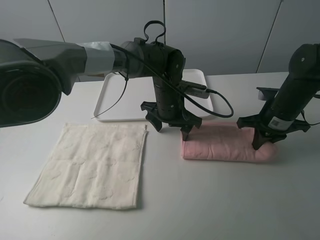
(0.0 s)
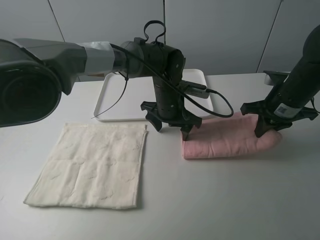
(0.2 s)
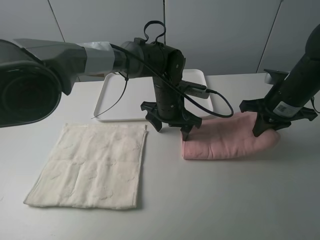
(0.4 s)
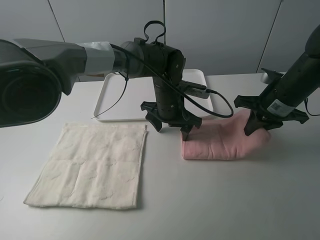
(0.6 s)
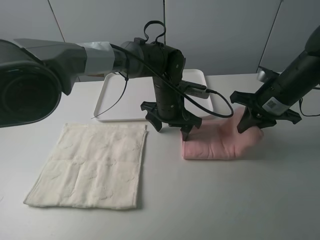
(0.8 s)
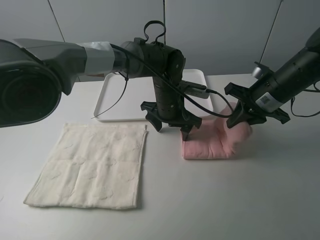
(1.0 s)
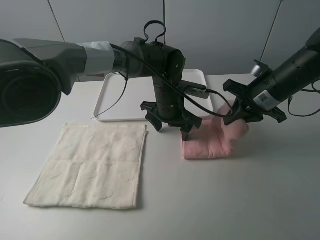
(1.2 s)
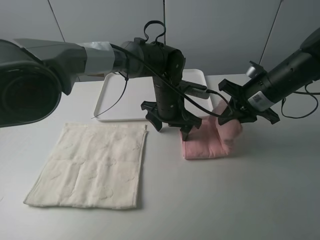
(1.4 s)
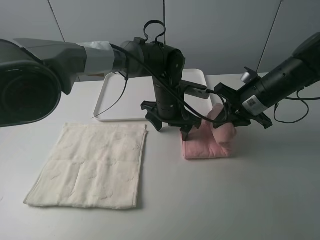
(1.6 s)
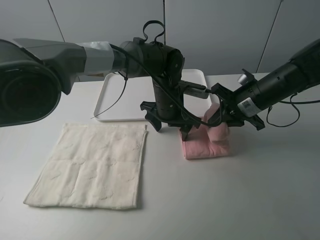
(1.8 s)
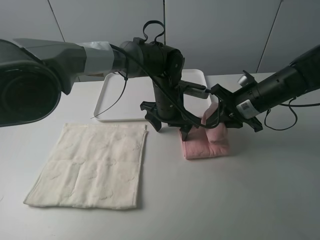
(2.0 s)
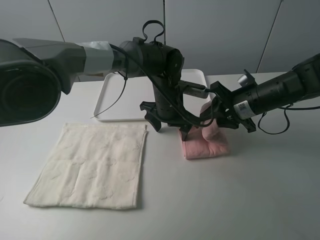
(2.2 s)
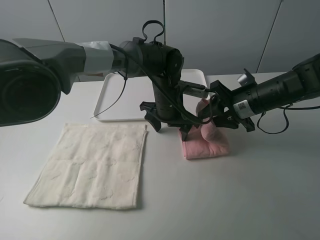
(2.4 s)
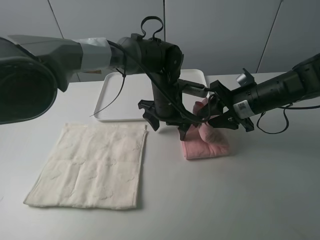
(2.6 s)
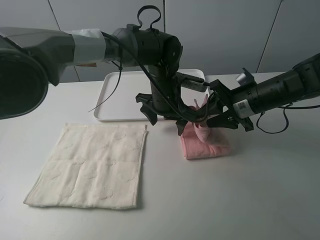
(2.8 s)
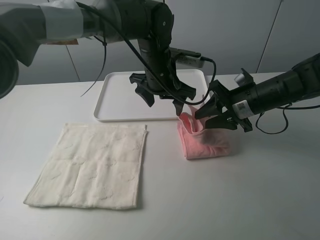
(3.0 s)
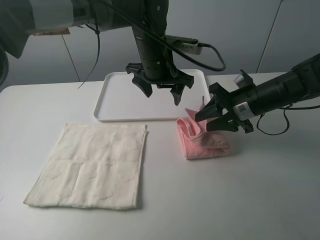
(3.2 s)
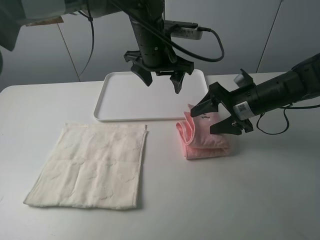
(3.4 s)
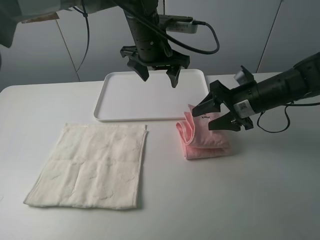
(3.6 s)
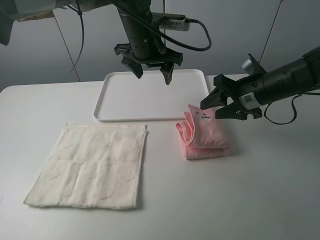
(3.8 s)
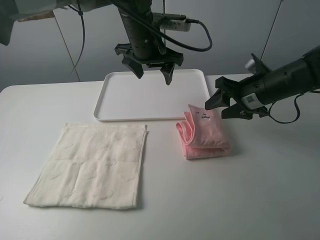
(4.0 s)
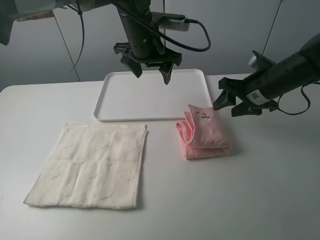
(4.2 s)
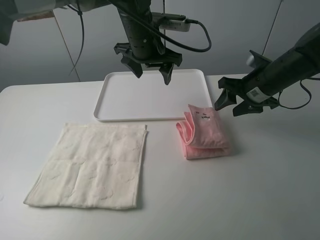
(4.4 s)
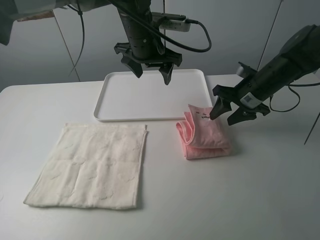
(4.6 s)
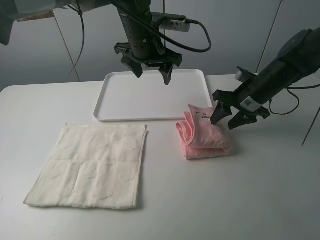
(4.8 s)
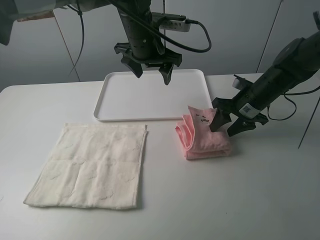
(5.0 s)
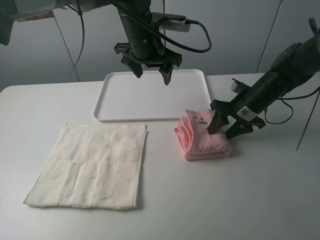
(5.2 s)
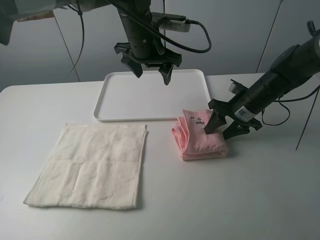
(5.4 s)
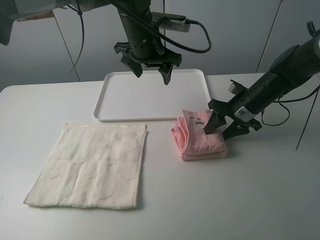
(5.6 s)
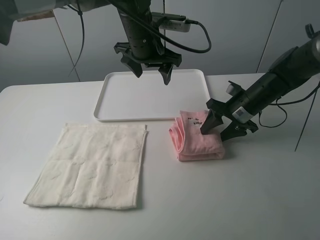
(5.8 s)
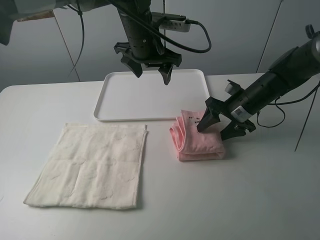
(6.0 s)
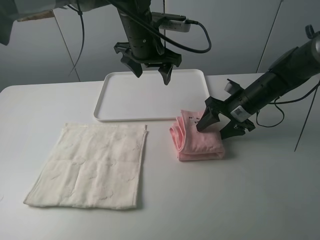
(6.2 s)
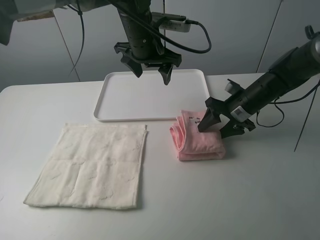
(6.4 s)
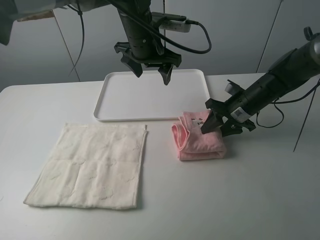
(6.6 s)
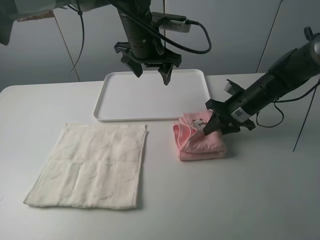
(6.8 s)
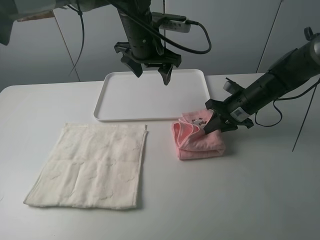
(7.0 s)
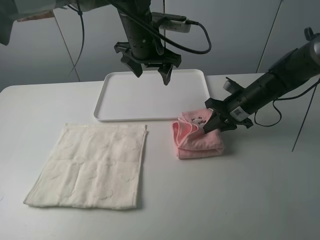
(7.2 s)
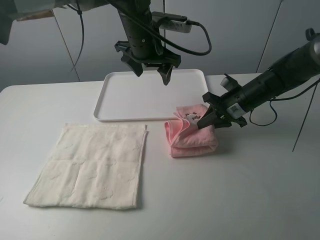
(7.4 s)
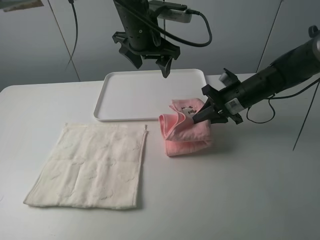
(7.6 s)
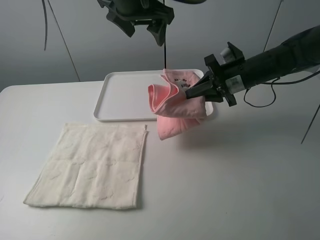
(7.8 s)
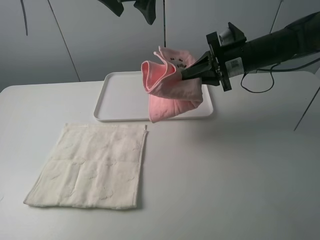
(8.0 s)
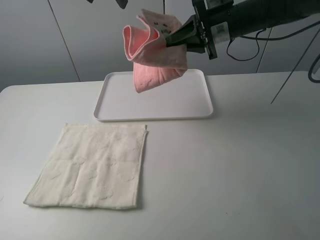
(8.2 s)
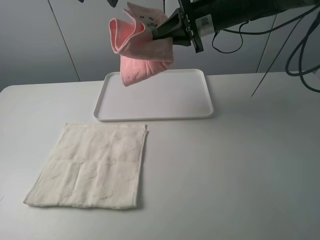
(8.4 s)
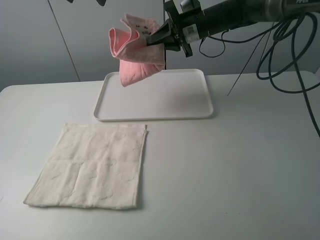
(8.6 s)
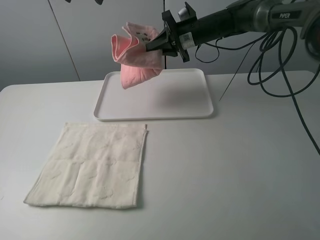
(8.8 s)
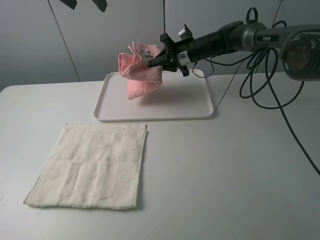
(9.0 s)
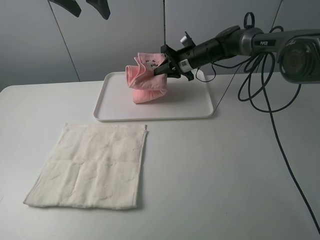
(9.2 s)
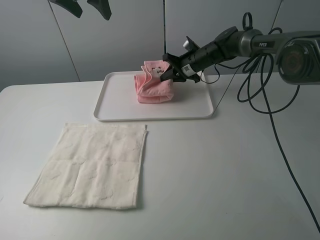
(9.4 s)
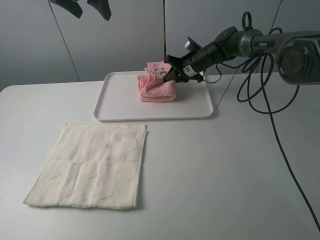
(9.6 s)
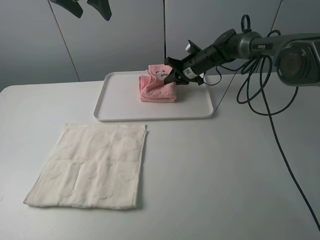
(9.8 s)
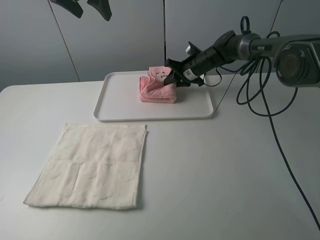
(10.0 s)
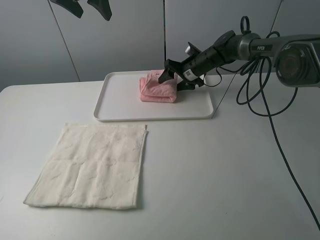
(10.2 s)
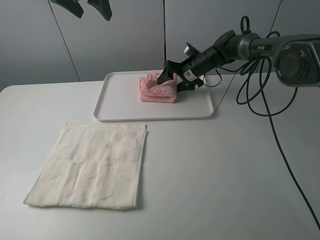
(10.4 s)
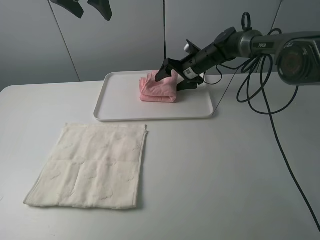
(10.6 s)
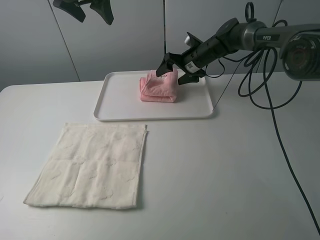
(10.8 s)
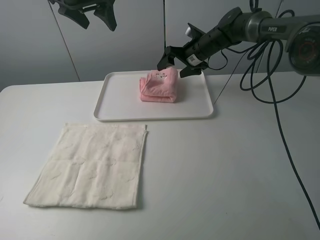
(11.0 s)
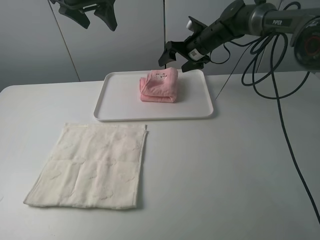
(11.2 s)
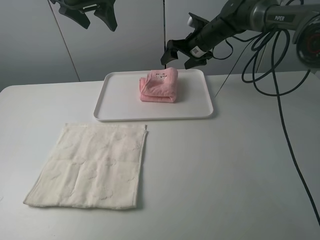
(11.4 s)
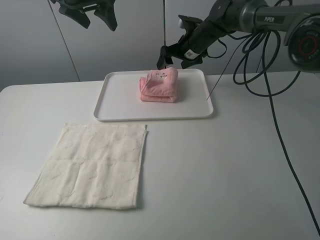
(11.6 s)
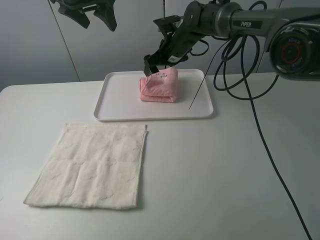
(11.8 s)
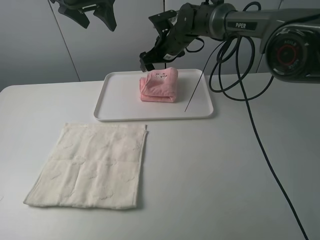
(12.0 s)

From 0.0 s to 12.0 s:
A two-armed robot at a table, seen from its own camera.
Task of the whole recording: fold one of the towels by two grippers and place it on the tray,then fold another towel by two grippers and place it on the folded towel.
Step, from 0.0 s to 4.2 s: Fold the pink towel from right to left with right gripper.
Step, from 4.4 s to 6.8 s: Grasp the pink towel with the right gripper.
Step, from 7.0 s to 10.6 s: Move the pink towel to the plate with the right gripper.
From 0.0 s to 1.6 s: The right gripper changes place by about 5 cm.
From 1.6 s to 3.0 s: The left gripper is displaced upward by about 10 cm. Meanwhile the right gripper opens its fingers.
From 3.0 s to 4.4 s: The left gripper shifts roughly 5 cm upward.
From 4.4 s to 6.0 s: The right gripper is displaced downward by roughly 5 cm.
From 6.0 s to 7.6 s: The right gripper closes its fingers.
From 7.6 s to 9.0 s: The right gripper is displaced forward and to the left by approximately 20 cm. Meanwhile the left gripper is displaced to the left and upward by some 15 cm.
From 9.0 s to 10.4 s: The right gripper opens its fingers.
From 10.4 s to 12.0 s: The right gripper heads upward and to the left, covering about 10 cm.

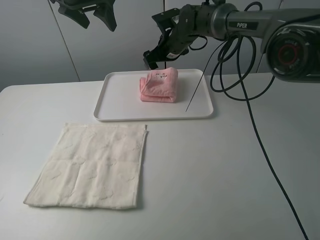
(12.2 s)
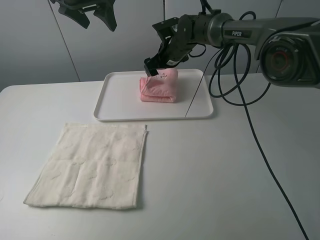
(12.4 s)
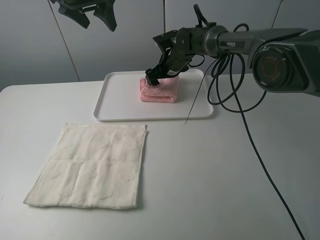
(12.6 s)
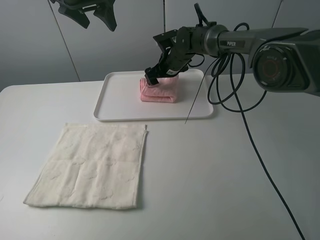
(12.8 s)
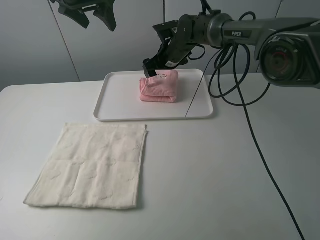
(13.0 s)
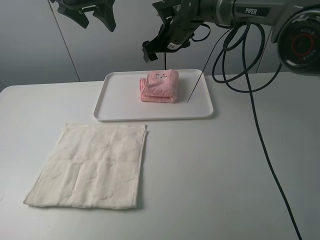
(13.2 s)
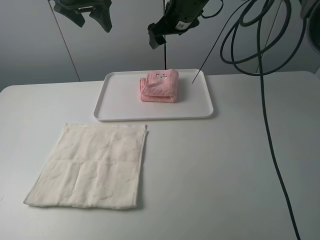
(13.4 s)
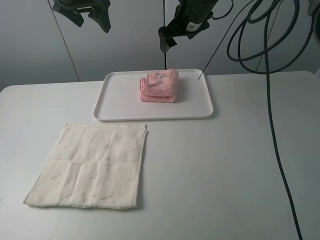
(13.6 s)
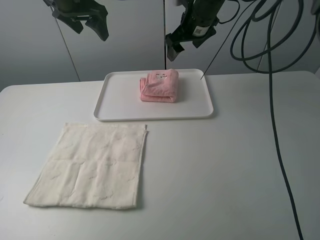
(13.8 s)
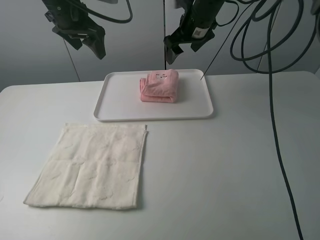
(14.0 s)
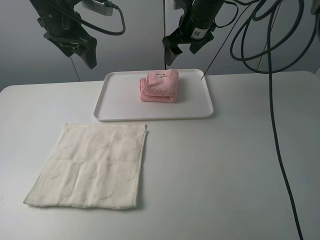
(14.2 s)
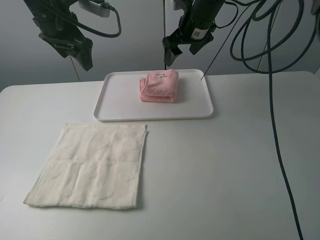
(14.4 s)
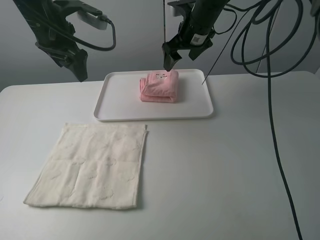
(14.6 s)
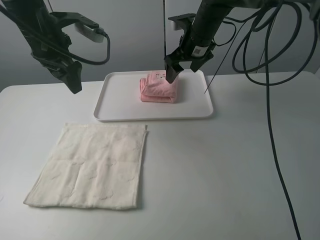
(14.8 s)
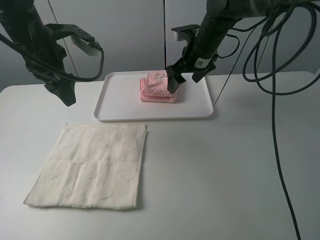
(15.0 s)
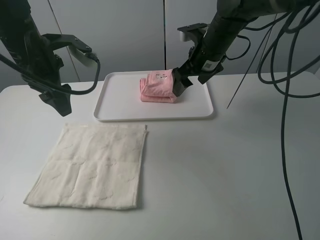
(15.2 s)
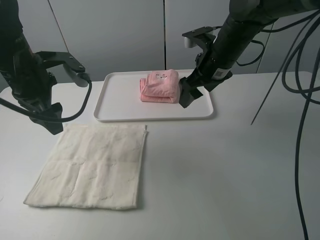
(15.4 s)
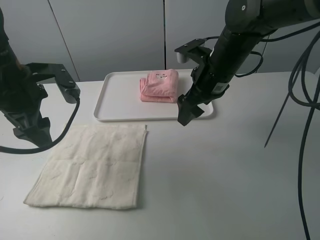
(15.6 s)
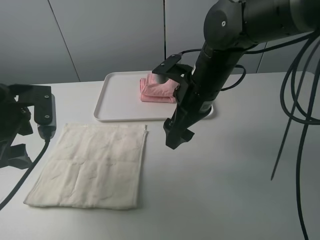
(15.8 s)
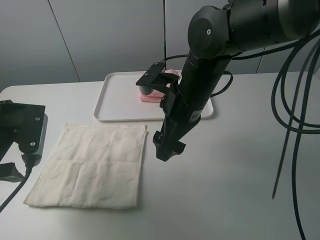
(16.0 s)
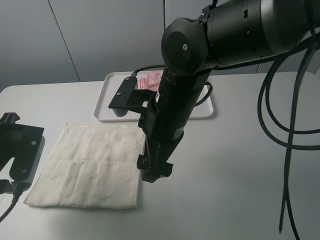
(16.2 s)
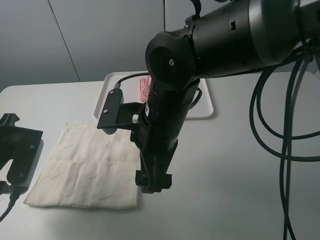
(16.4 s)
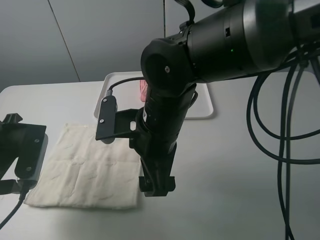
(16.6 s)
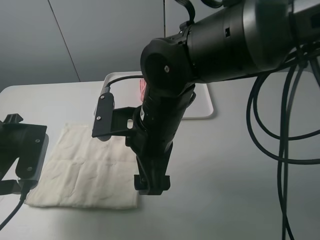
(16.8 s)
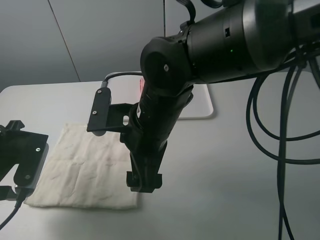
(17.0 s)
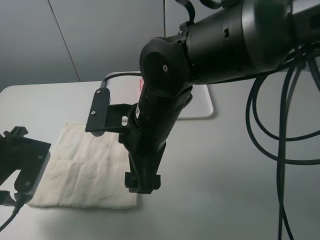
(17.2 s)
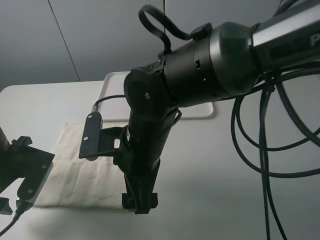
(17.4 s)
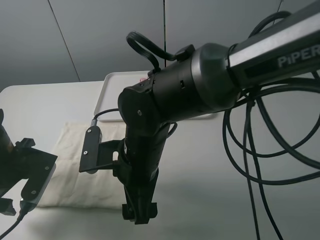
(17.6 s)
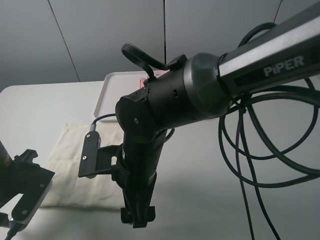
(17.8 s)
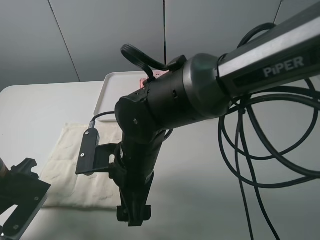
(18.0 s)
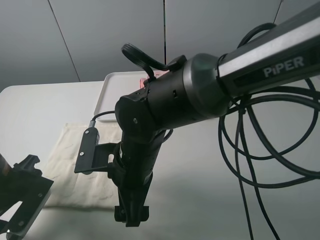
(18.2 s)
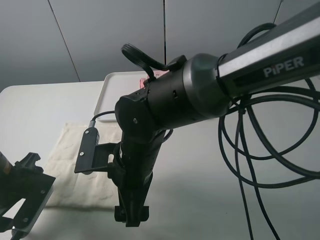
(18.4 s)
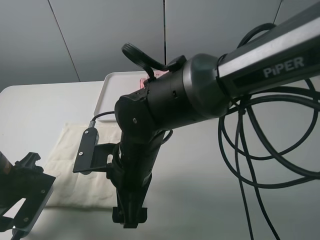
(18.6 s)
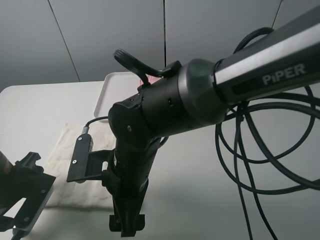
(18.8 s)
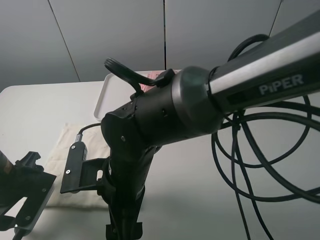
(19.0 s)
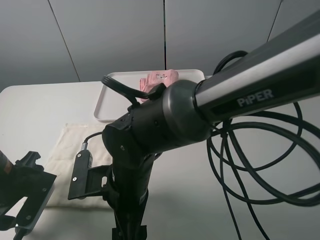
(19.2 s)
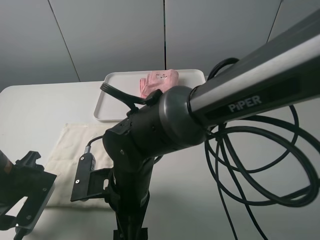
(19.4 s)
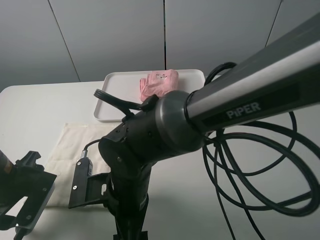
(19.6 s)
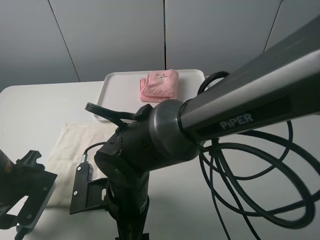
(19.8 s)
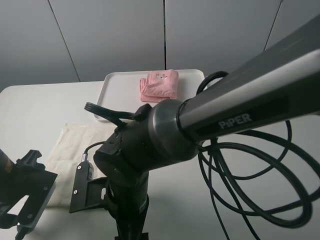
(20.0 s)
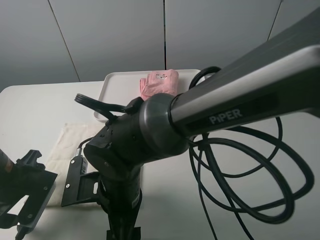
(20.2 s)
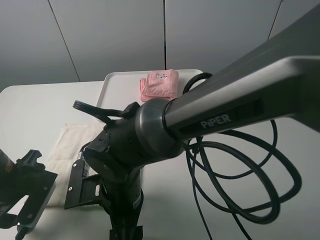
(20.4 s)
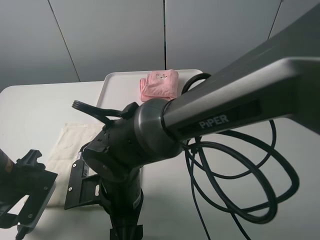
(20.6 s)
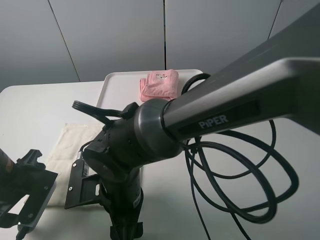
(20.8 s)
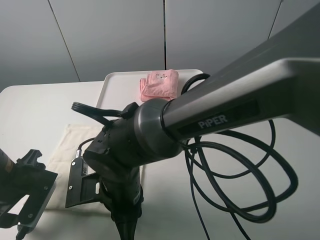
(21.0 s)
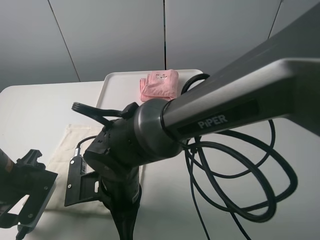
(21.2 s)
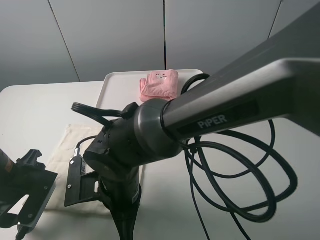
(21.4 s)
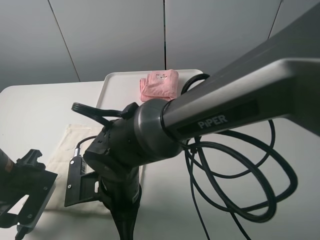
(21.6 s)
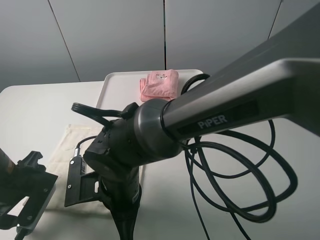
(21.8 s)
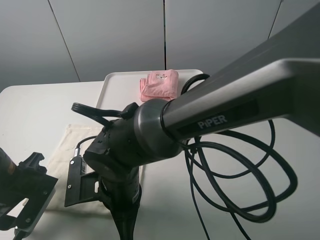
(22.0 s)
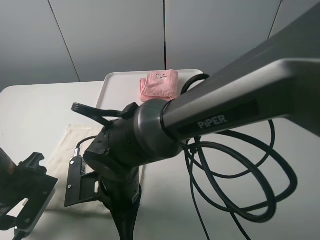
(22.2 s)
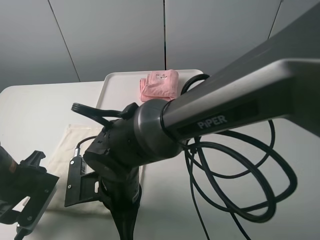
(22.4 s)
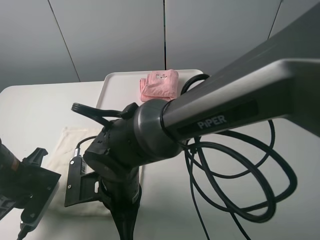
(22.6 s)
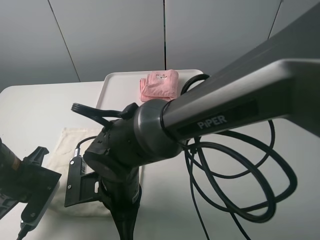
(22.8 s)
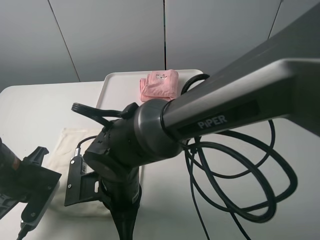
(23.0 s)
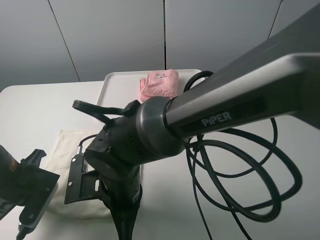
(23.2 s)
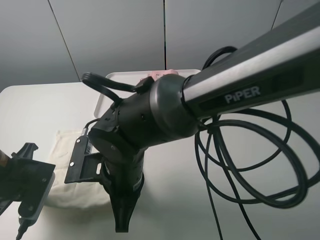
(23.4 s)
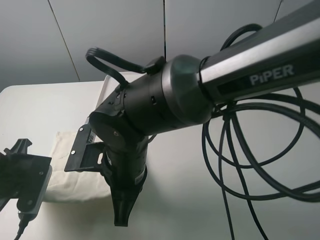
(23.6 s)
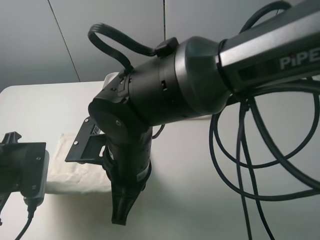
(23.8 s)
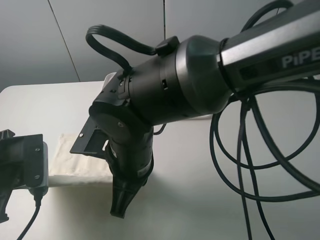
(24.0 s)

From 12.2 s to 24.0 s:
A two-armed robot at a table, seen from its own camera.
Task of the whole recording: fold one of the towels by two grippers and place it on the tray,then fold another towel by two grippers and place it on the folded towel.
Step, from 12.2 s to 22.8 s: Grasp the white towel with the left gripper.
From 12.2 s to 13.6 s: The right gripper goes about 10 cm upward.
From 13.6 s to 15.2 s: The left gripper moves backward and downward, approximately 15 cm, while the right gripper heads backward and downward, covering some 10 cm.
From 15.2 s to 16.6 s: The right gripper shifts some 25 cm backward and to the left; the left gripper travels backward and downward by some 15 cm.
From 16.6 s to 18.2 s: Both grippers move downward, some 5 cm.
From 19.6 s to 21.0 s: The right gripper closes.
From 21.0 s to 22.6 s: The left gripper closes up.
From 22.6 s to 24.0 s: The grippers both shift upward by some 5 cm.
